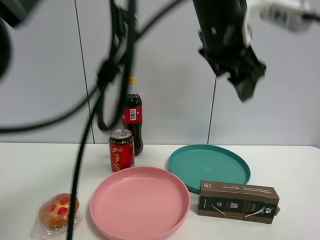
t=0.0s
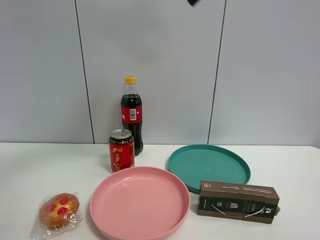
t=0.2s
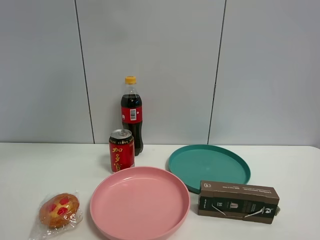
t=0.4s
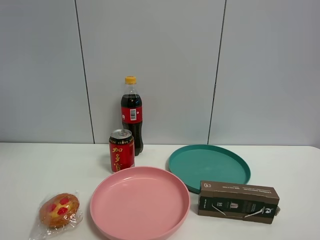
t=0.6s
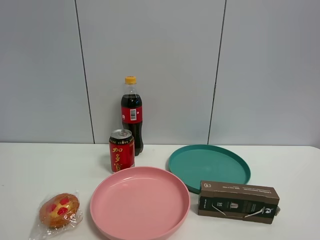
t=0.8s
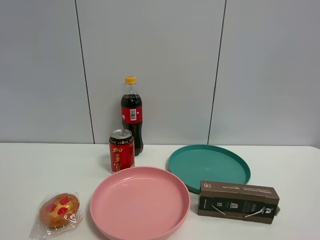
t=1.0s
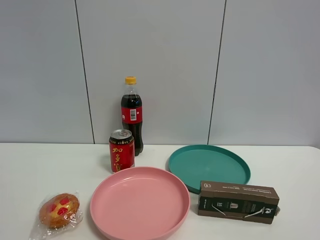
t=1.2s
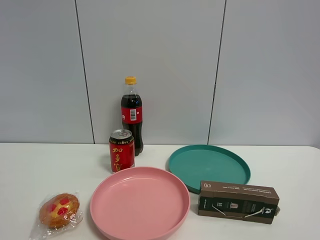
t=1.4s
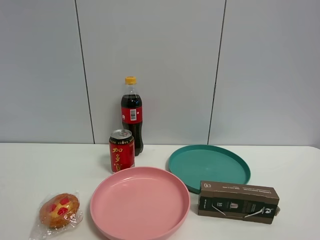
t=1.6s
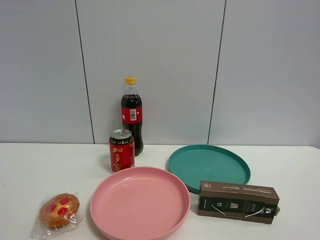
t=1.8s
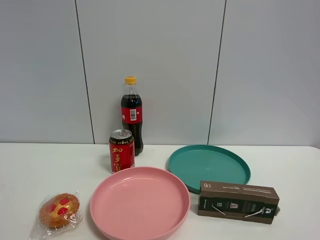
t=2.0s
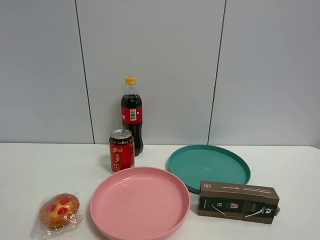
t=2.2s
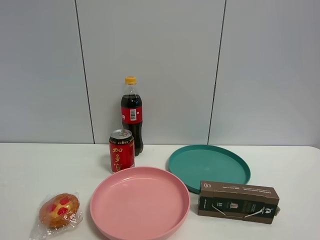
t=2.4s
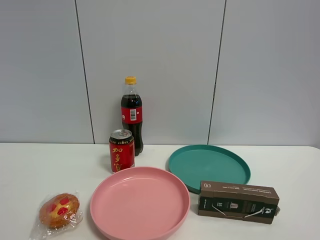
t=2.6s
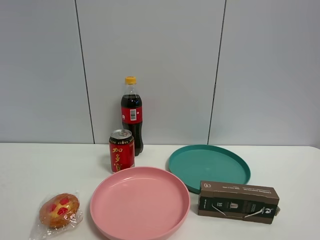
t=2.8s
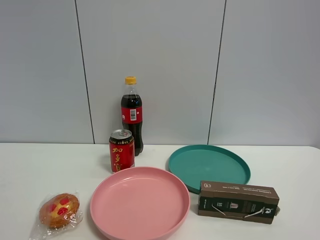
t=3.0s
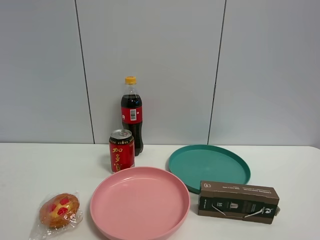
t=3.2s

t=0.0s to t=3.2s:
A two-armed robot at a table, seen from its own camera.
Task of the whole recording: the gripper move the object.
t=0.0s to t=1.6s: The left gripper shifts about 50 cm to the left and backward.

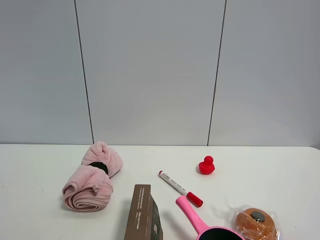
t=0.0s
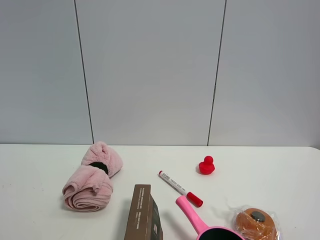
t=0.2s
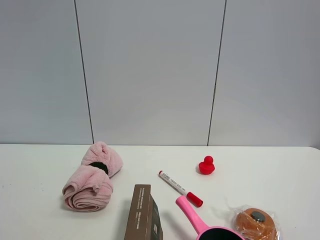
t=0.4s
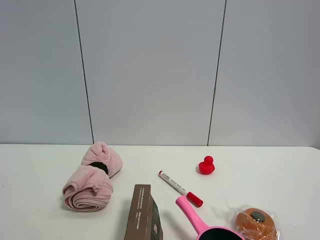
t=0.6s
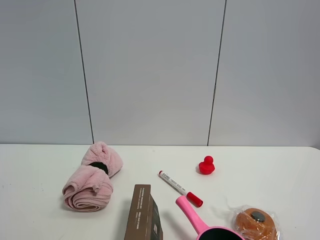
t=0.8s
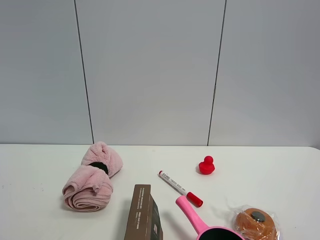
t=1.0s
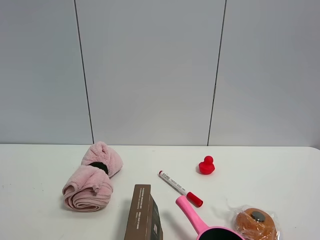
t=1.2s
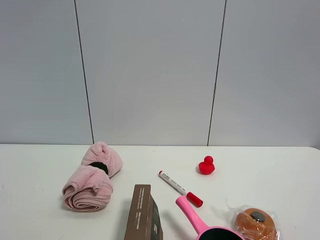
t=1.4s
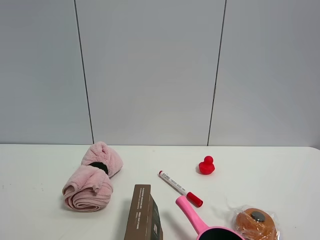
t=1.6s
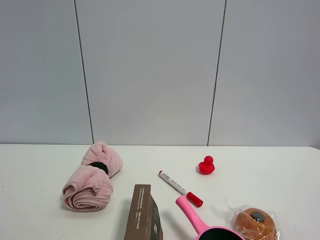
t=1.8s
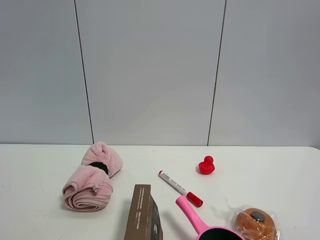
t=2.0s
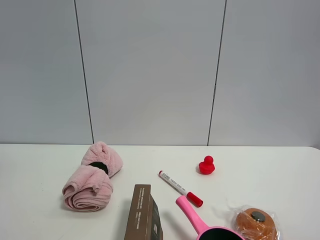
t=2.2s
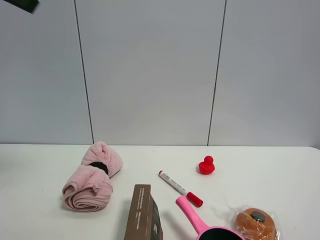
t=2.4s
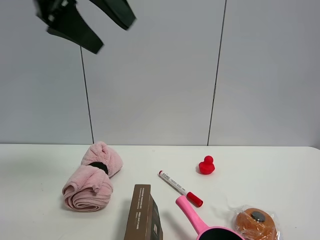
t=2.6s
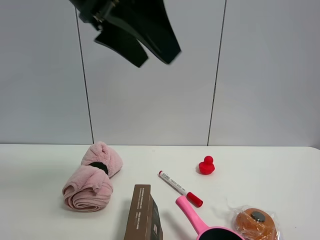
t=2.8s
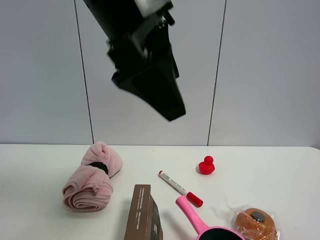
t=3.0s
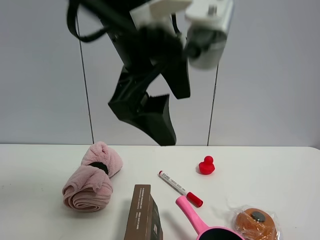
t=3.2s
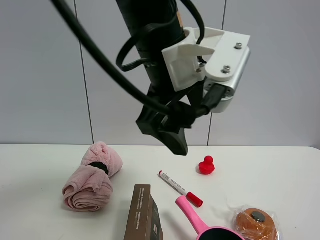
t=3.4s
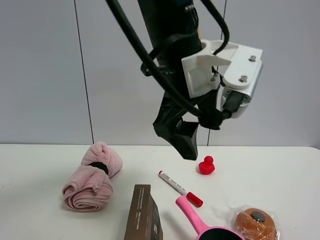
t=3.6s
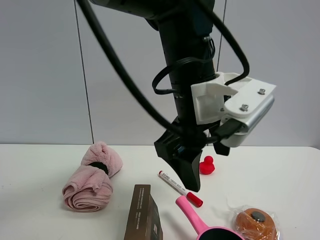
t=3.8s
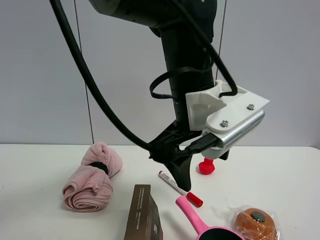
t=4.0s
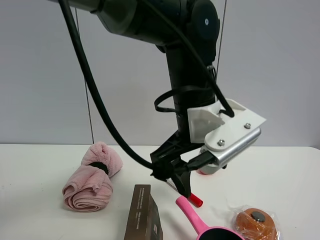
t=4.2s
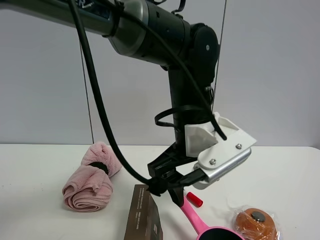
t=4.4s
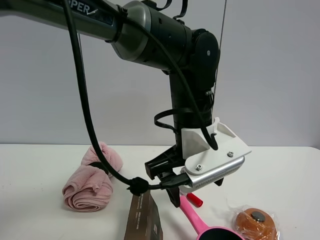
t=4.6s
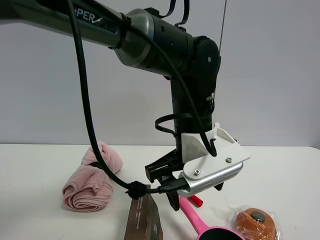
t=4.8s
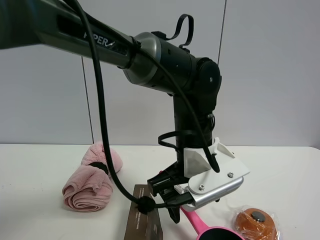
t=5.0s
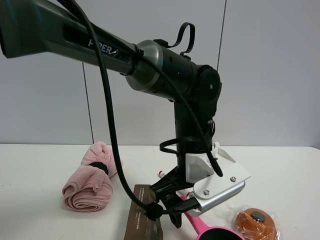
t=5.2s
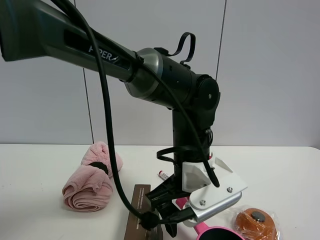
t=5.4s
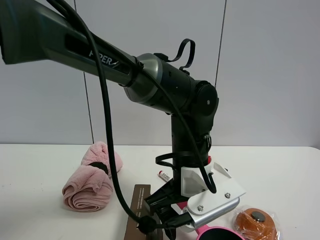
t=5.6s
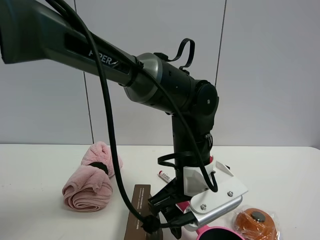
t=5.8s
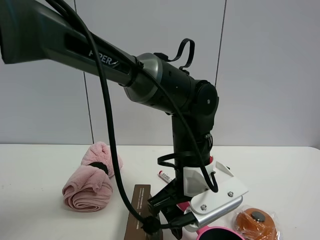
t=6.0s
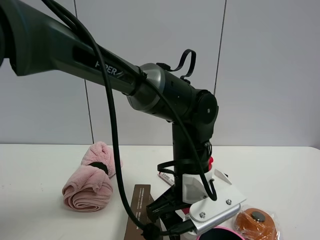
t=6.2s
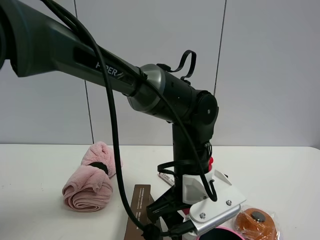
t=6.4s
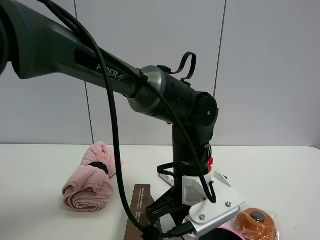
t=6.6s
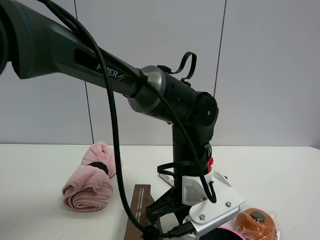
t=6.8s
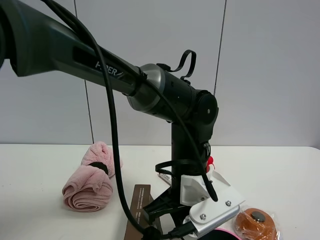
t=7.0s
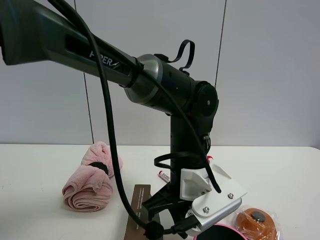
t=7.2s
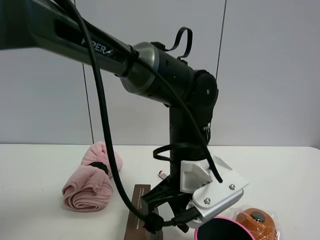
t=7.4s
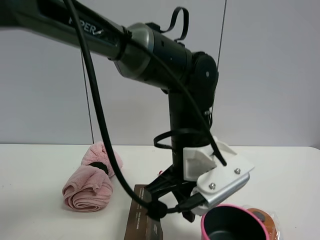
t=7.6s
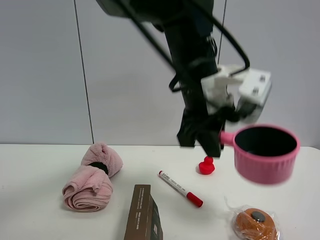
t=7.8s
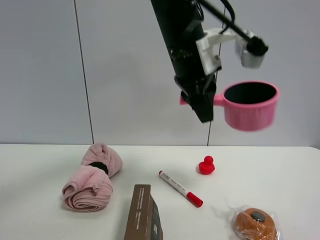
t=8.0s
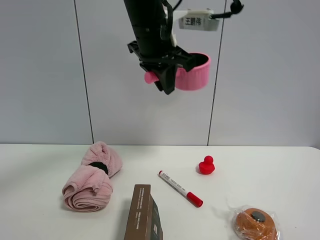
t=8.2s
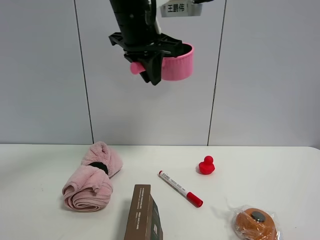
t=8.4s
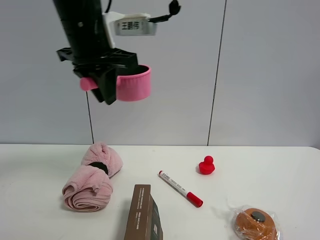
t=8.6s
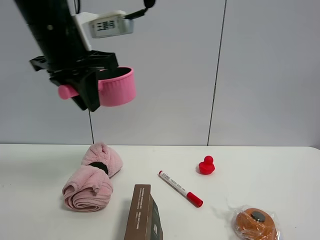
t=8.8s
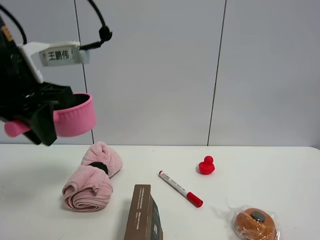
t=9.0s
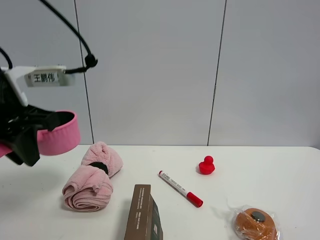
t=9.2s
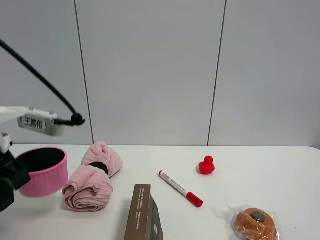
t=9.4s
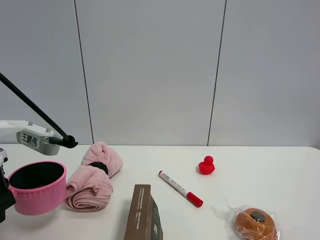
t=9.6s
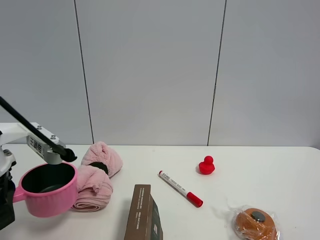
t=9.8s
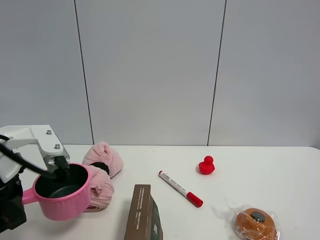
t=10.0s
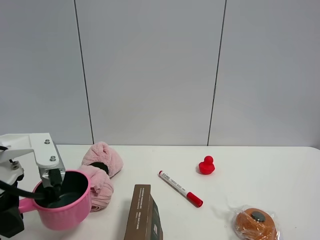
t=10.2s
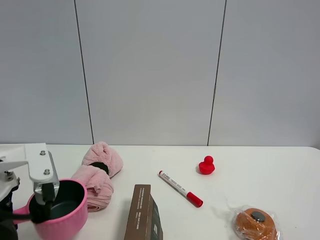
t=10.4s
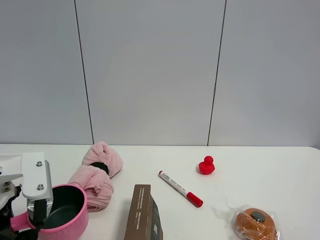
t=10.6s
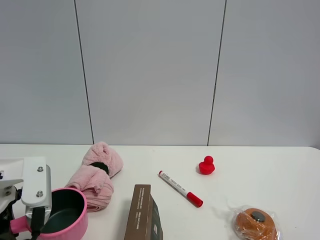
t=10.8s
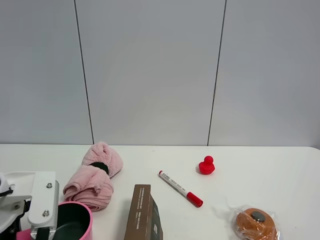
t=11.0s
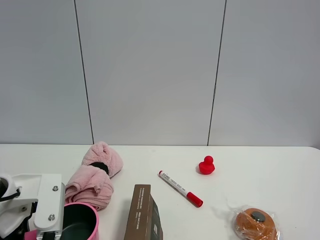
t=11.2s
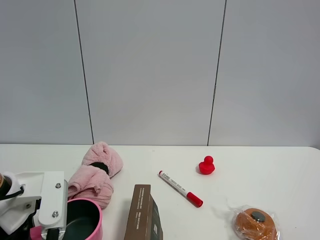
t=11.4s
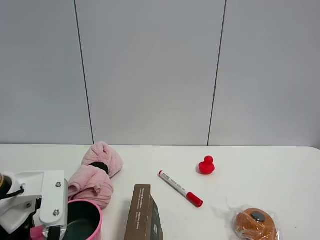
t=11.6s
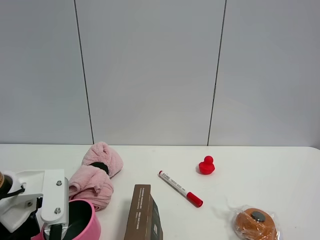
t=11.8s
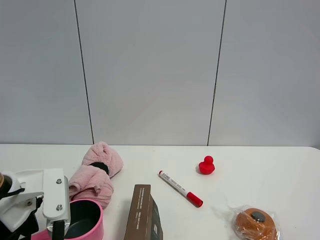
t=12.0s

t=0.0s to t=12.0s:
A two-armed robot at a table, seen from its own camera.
Task of the whole recording: the gripper move the object.
Step, t=0.0s to t=6.8s: Grasp the pink pot with the left gripper.
Step, t=7.0s to t=12.0s: Place the pink pot on the table with the left gripper.
t=1.6s to t=3.0s: The left gripper heads to the right and forward, covering roughly 30 cm.
t=3.0s to t=4.4s: The left gripper is displaced downward, to the right and forward by some 20 cm.
t=4.4s to t=6.0s: The left gripper heads downward, covering approximately 5 cm.
t=6.0s to t=7.6s: The left gripper is displaced upward by some 5 cm, and closes up.
t=7.6s to t=9.0s: The left gripper goes some 25 cm to the left.
t=9.0s to t=10.4s: The left gripper shifts roughly 15 cm downward and backward.
t=10.4s to t=12.0s: The left gripper opens up.

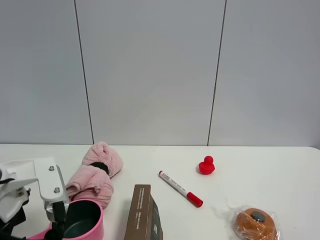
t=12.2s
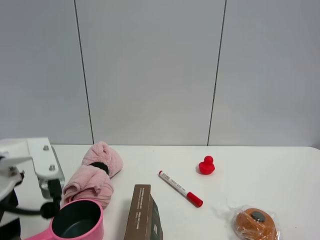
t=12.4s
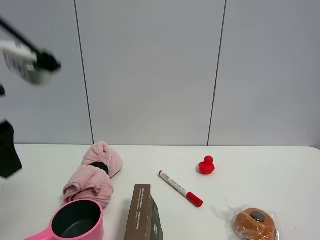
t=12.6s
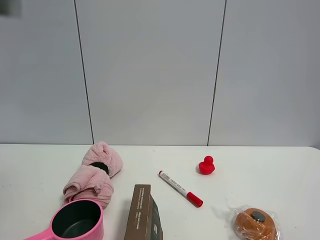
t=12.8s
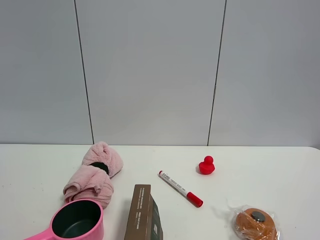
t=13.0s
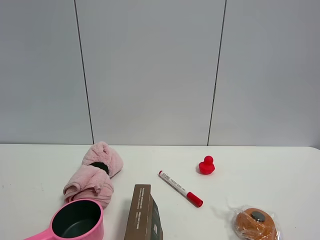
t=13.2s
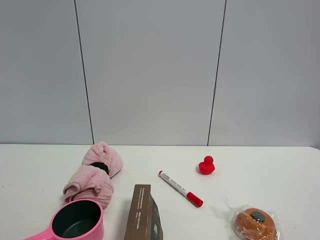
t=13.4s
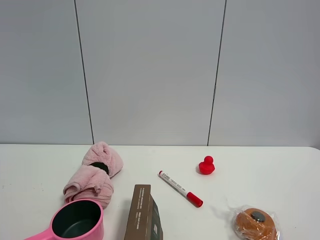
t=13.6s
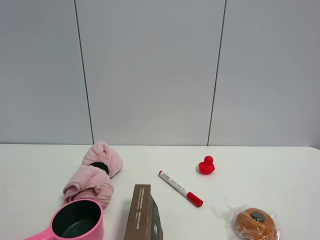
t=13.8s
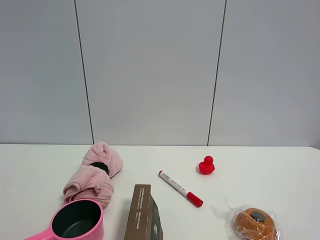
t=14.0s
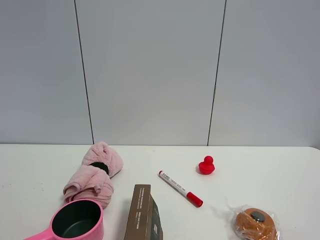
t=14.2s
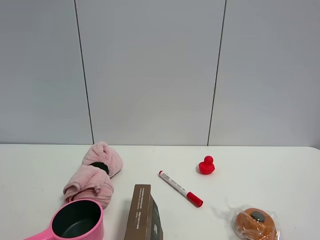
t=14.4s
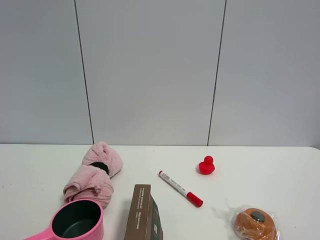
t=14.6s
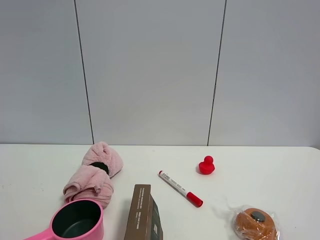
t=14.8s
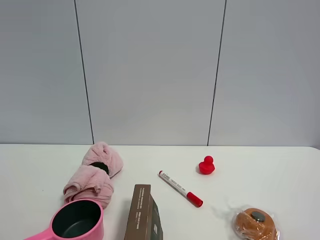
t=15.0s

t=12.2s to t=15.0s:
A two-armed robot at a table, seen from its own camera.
Task of the whole recording: the gripper move the object.
t=12.2s to t=13.6s: The left gripper is displaced backward, upward and to the left by approximately 35 cm.

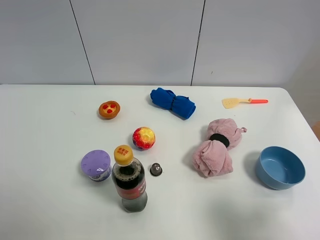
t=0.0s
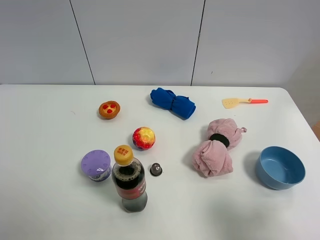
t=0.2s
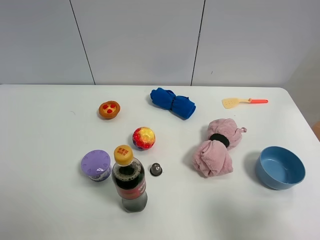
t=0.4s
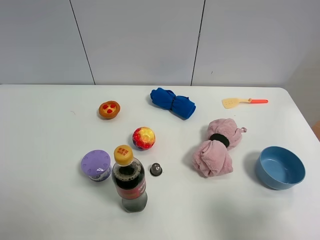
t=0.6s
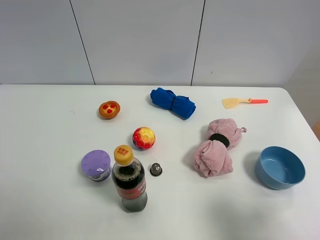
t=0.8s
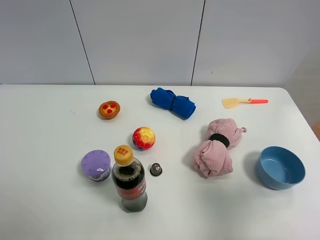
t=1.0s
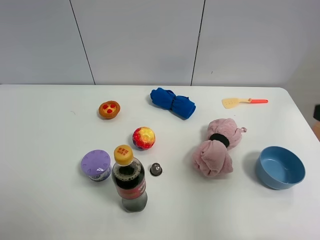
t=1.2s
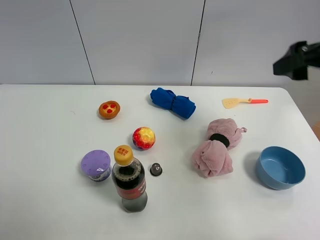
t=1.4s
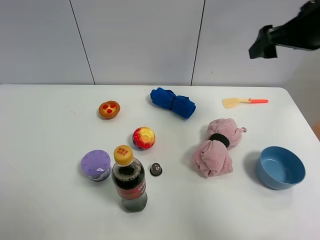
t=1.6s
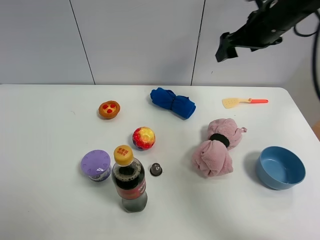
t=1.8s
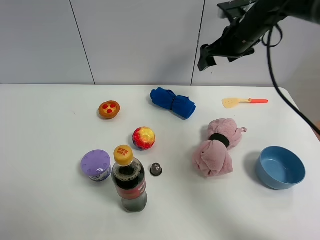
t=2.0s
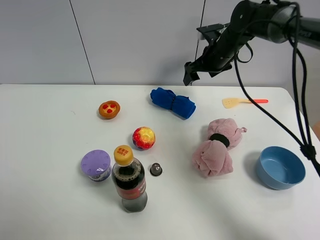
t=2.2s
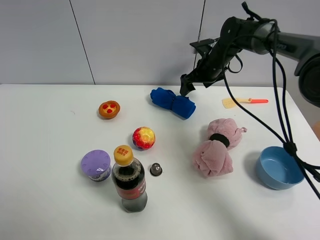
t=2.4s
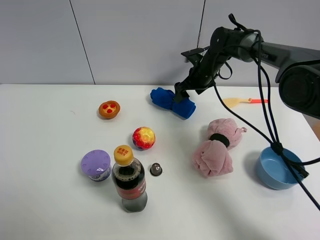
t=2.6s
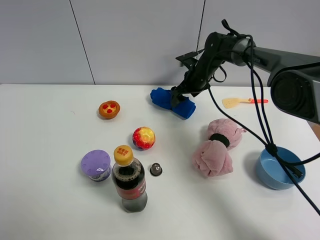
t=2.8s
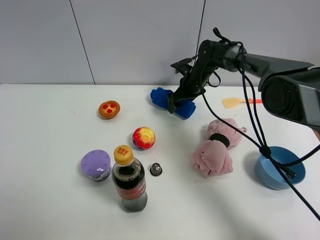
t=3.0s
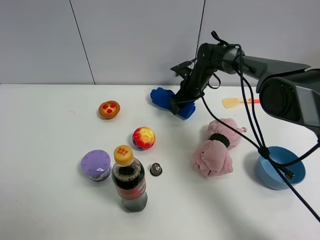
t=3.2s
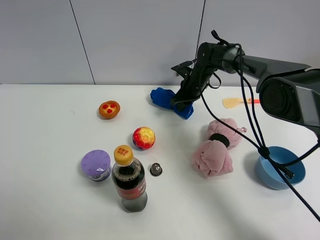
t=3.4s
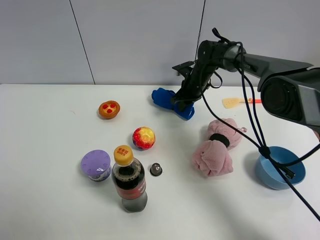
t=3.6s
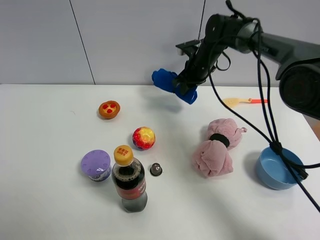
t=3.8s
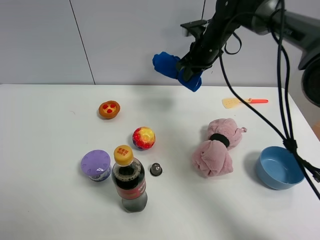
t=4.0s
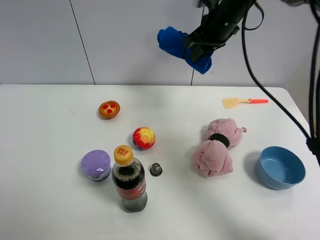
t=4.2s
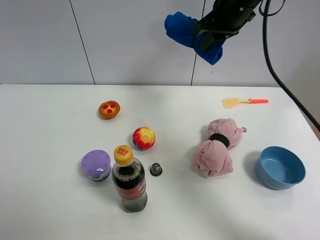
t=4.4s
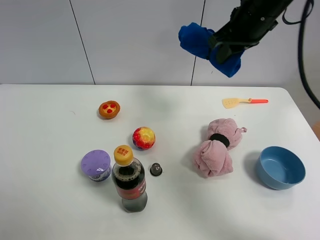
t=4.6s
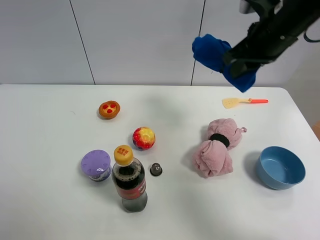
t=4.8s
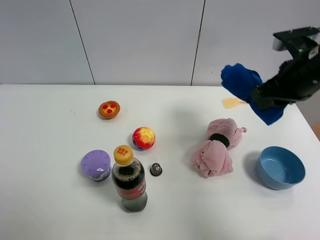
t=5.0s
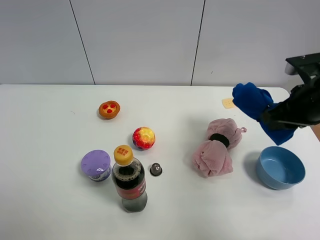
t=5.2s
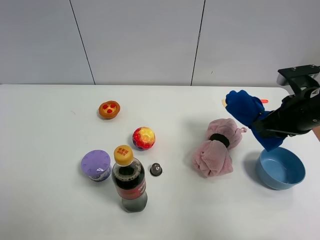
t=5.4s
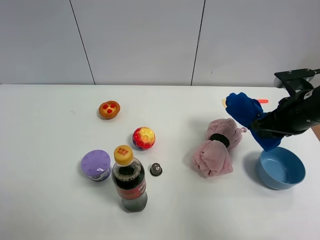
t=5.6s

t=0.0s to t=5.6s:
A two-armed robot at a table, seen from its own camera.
Task of the whole recording: the gripper move the object.
Step, t=0.0s to t=3.2s: Grasp the blue towel with the right gripper.
t=0.0s to t=1.4s: The right gripper moves forward, roughly 25 cm.
t=1.4s to t=2.8s: The right gripper shifts approximately 35 cm forward, downward and to the left.
t=2.8s to t=4.2s: The right gripper shifts about 20 cm upward, and closes its fingers.
t=4.2s to t=5.6s: The right gripper shifts approximately 25 cm backward, to the right and downward.
